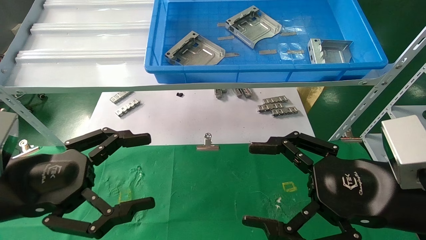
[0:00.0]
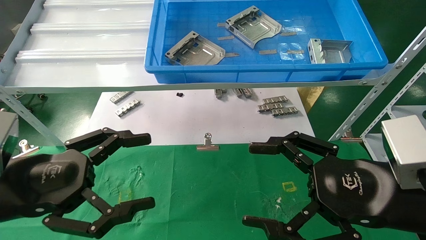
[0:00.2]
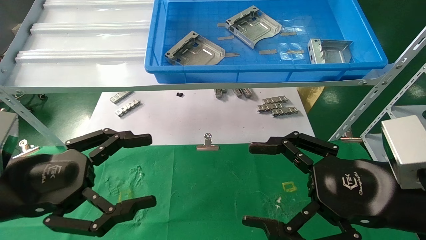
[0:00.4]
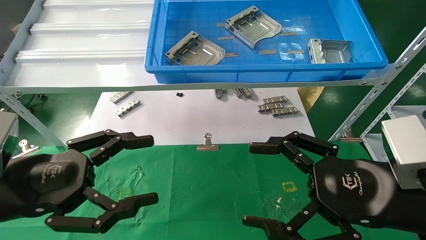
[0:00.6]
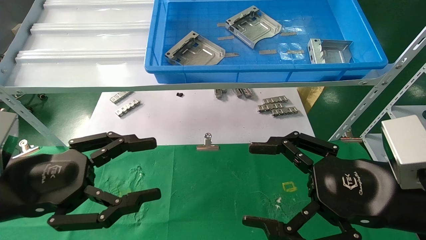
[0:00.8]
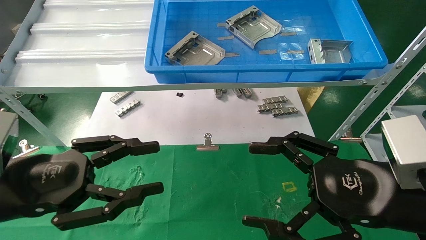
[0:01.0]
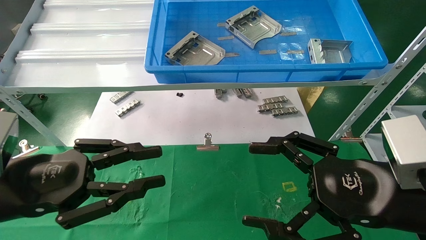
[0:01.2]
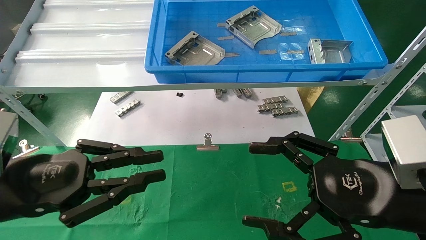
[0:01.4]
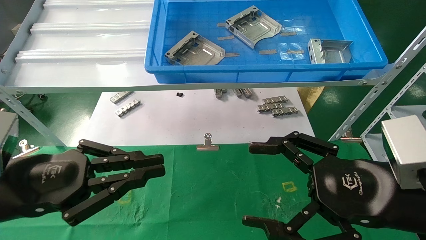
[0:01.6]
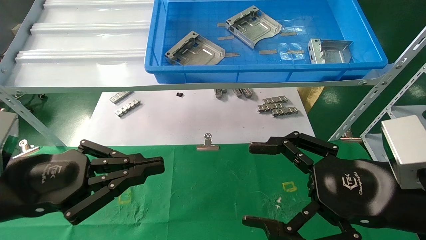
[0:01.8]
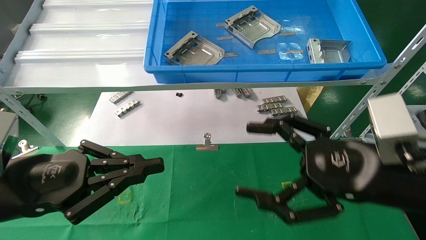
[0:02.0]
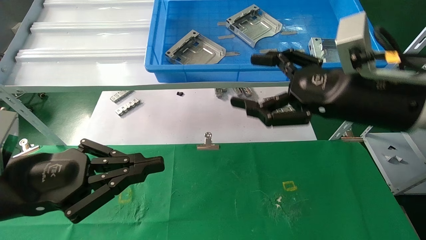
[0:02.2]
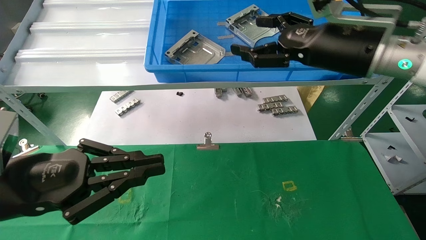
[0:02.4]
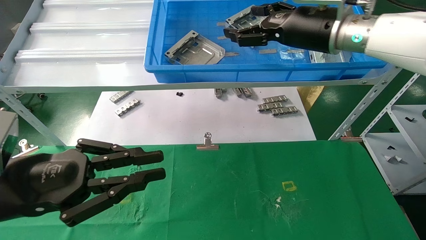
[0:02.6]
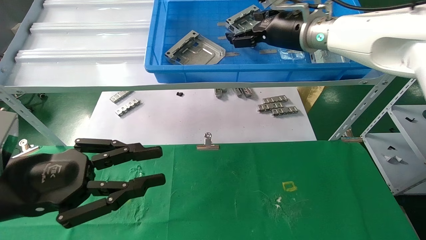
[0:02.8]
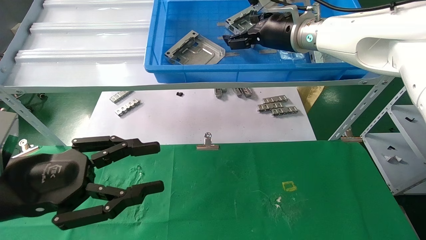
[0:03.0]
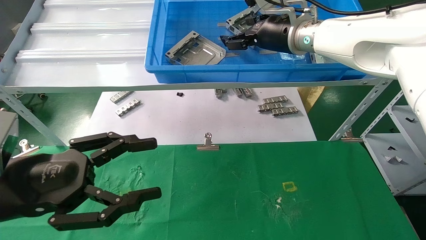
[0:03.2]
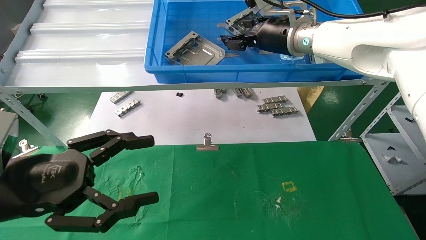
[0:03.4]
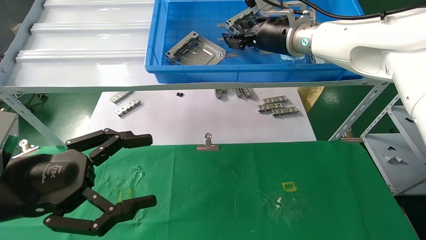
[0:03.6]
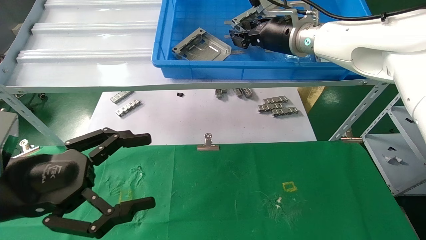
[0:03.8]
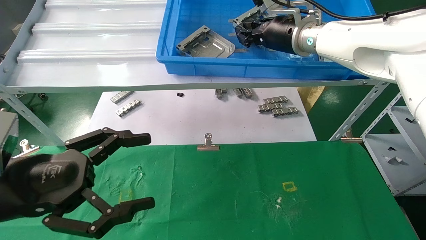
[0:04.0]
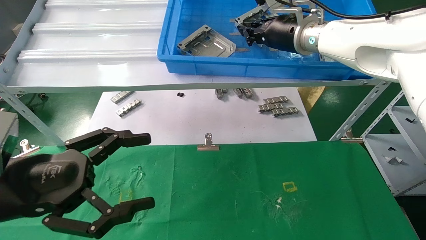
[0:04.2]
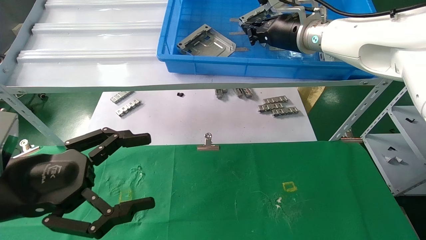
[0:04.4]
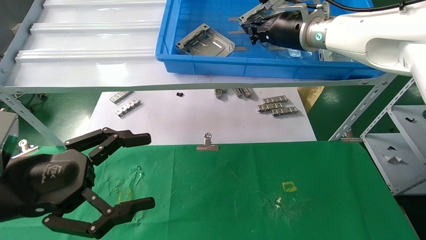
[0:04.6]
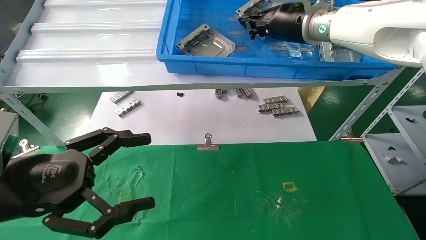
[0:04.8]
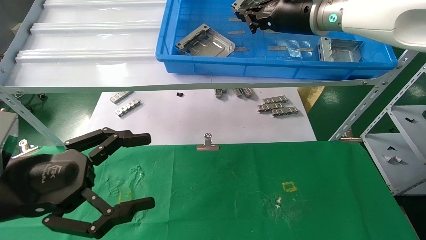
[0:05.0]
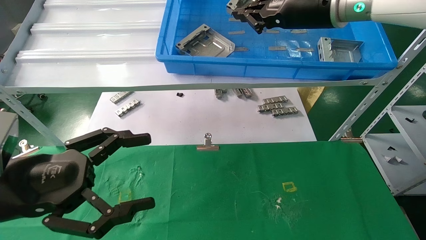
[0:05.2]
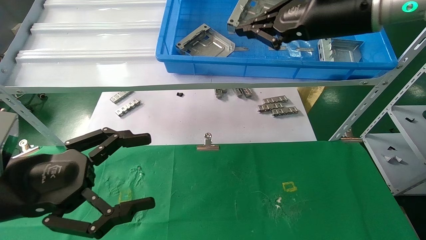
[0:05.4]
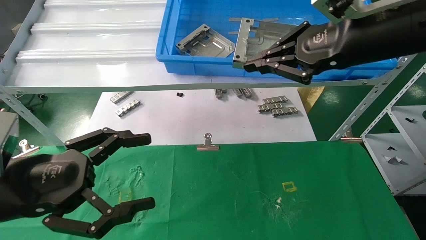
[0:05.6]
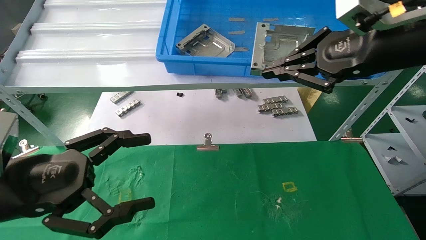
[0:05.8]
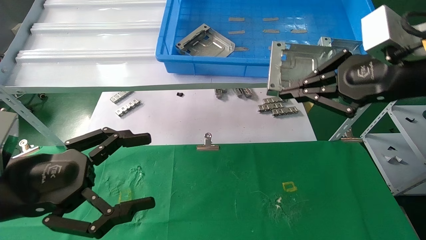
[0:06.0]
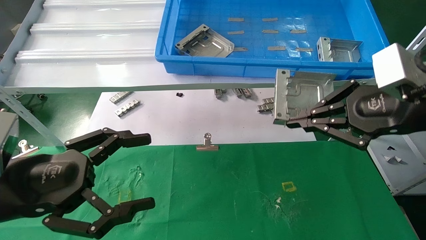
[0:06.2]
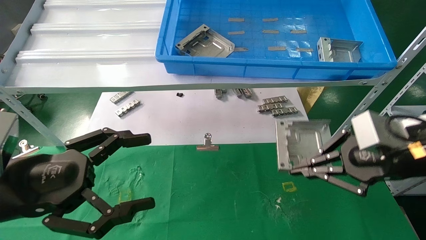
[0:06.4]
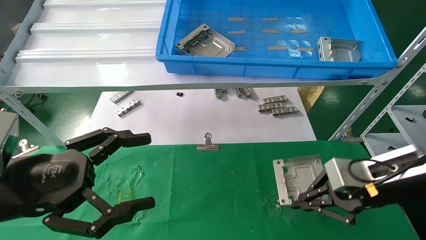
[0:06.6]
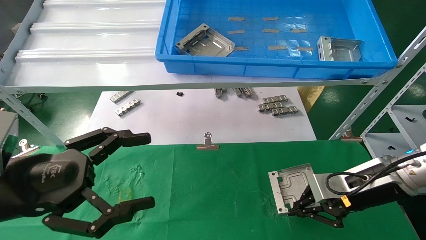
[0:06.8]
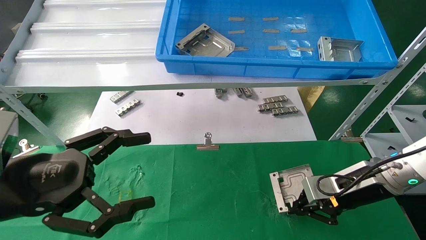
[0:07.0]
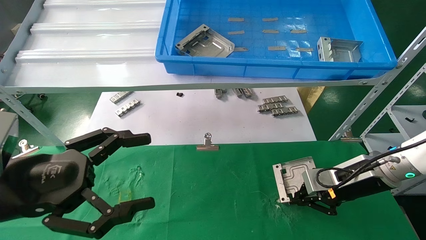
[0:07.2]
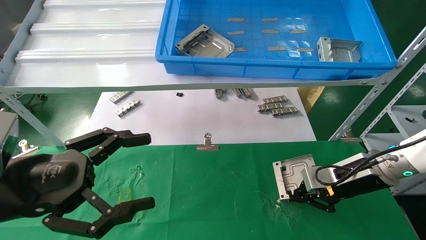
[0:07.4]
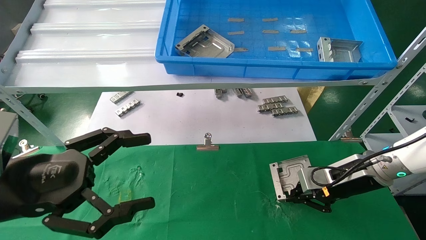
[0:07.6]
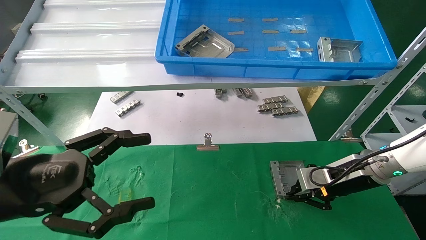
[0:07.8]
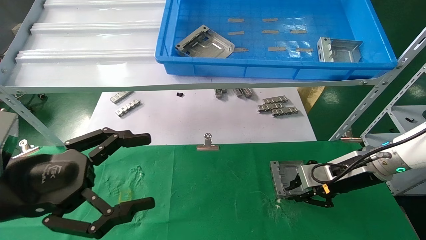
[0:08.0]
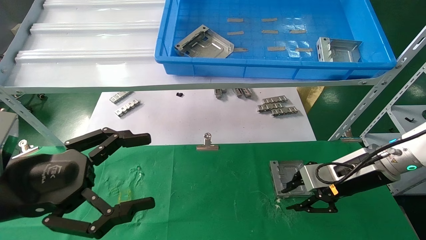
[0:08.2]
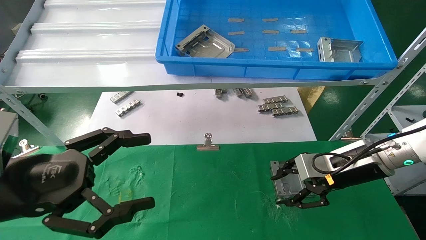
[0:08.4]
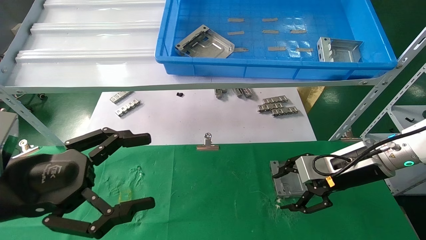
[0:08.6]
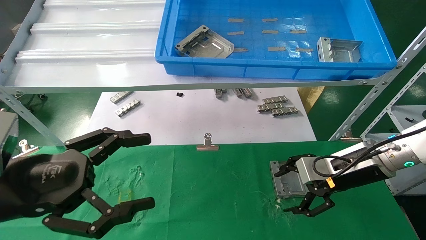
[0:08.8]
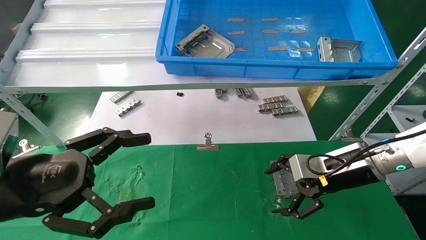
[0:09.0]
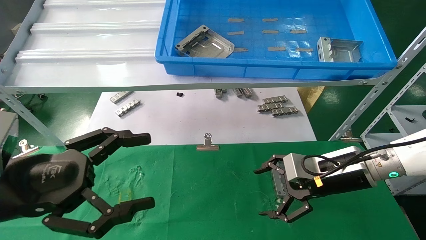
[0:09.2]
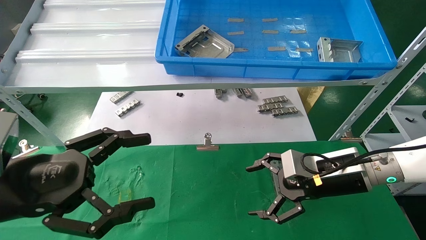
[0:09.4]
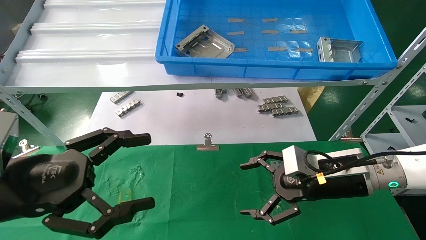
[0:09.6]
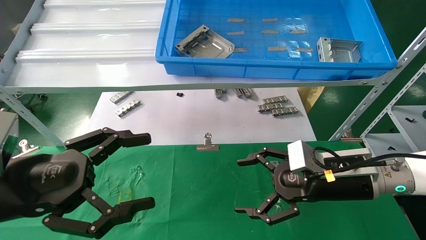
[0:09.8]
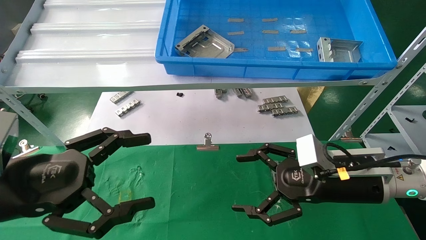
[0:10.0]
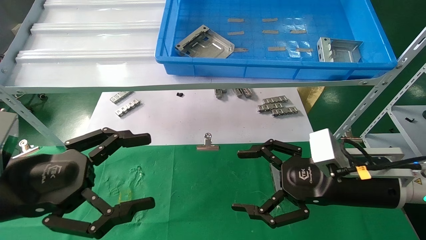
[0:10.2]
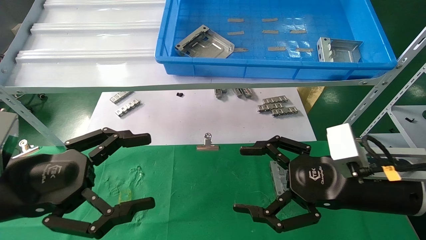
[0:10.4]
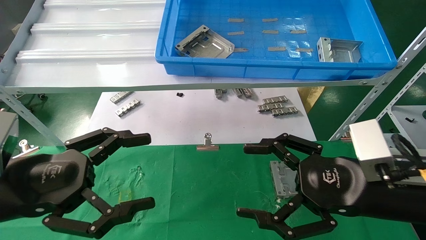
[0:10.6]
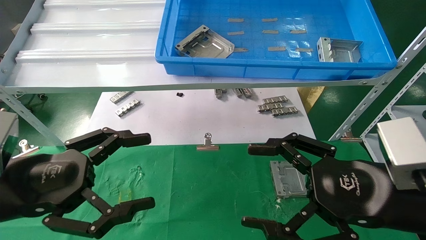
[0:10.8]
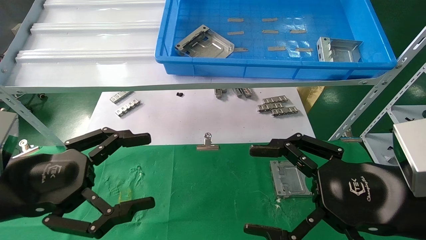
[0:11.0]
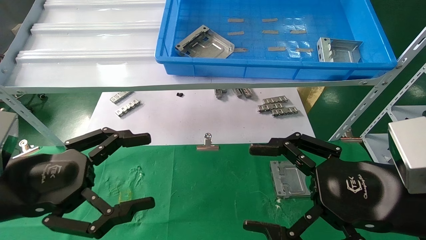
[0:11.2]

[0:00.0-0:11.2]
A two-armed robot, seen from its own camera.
Task of the whole recording: use the mechanical arm to pick up the parts and place them on the table.
Step, 0:02.2 to 0:04.2: Pick up the hard drive bracket from the feeding area.
Step, 0:04.4 to 0:07.8: Place the hard drive bracket into the box.
0:00.0 to 0:01.6: The left gripper closes.
0:01.6 to 0:03.2: The left gripper opens its fingers; the right gripper is displaced forward and upward by approximately 30 cm.
0:03.2 to 0:04.8: The left gripper opens up, while the right gripper closes.
0:04.8 to 0:06.4: The right gripper goes some 25 cm backward, downward and to the right.
0:06.4 to 0:08.0: The right gripper travels downward and forward by approximately 15 cm.
0:08.0 to 0:09.6: The right gripper travels to the left by about 5 cm, and opens its fingers.
0:09.6 to 0:11.2: The right gripper goes roughly 15 cm backward.
